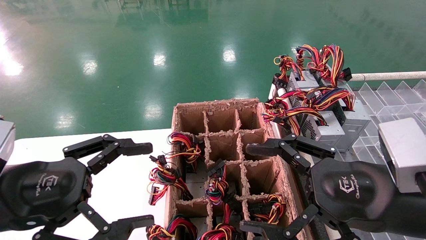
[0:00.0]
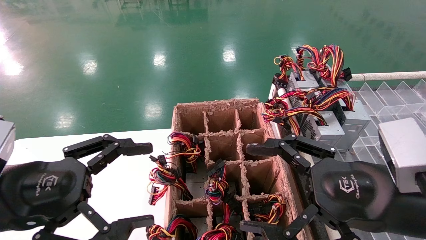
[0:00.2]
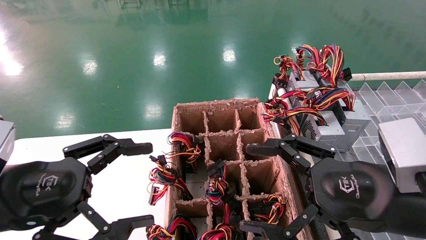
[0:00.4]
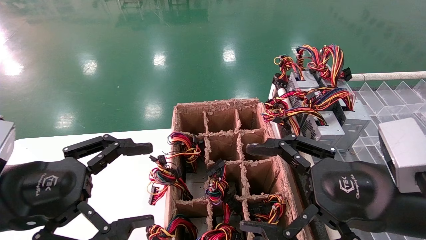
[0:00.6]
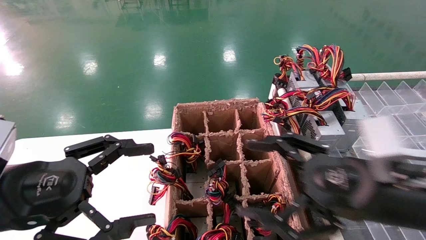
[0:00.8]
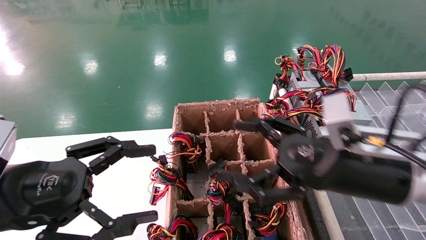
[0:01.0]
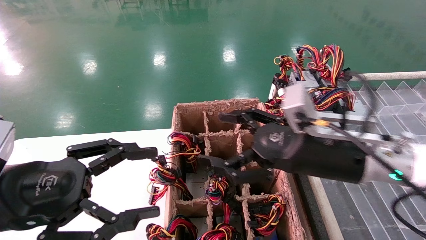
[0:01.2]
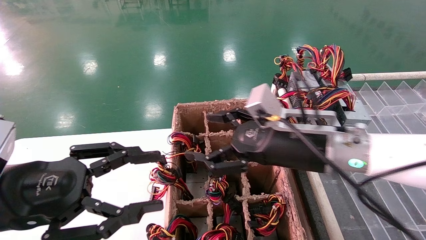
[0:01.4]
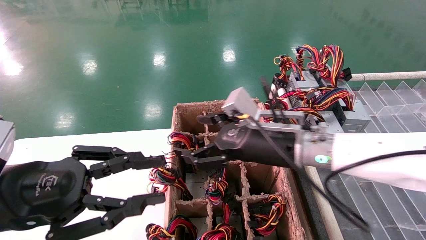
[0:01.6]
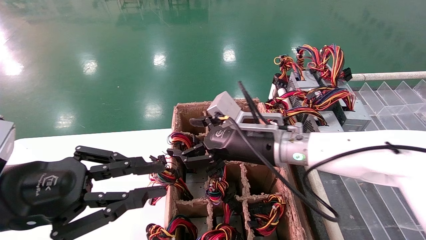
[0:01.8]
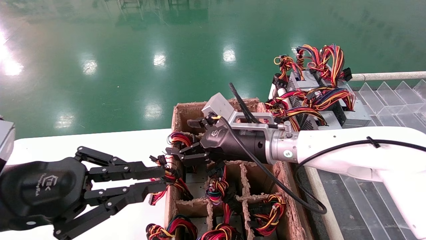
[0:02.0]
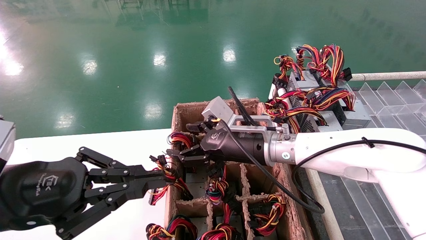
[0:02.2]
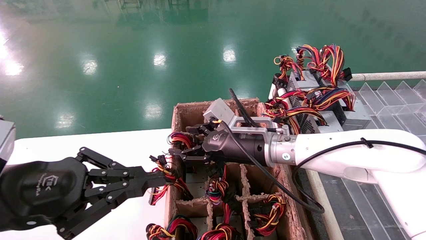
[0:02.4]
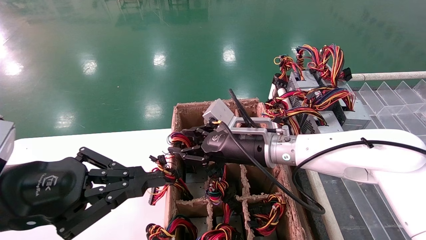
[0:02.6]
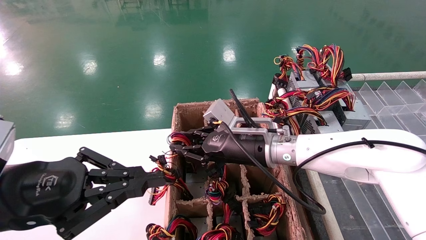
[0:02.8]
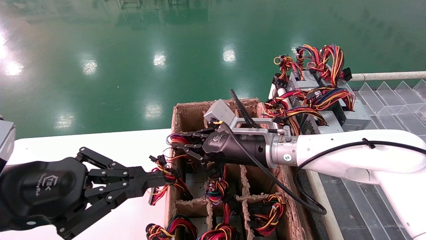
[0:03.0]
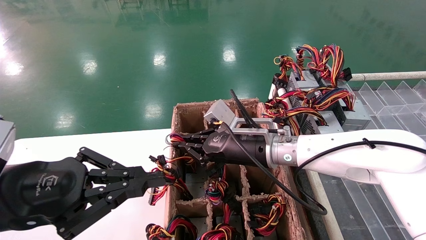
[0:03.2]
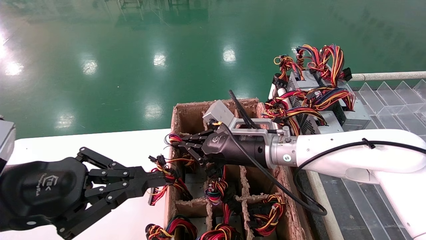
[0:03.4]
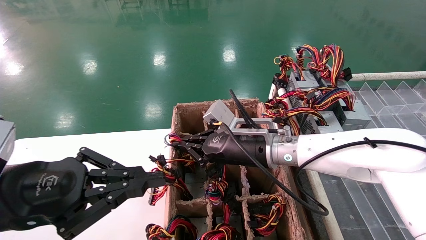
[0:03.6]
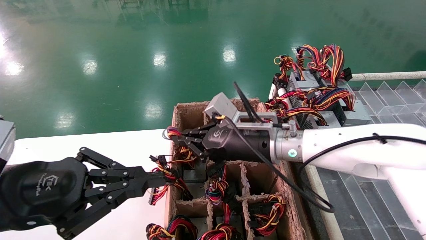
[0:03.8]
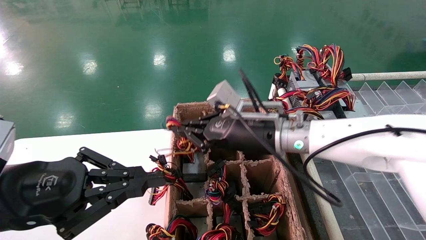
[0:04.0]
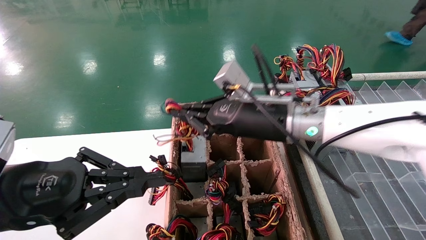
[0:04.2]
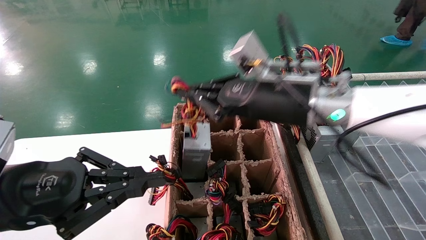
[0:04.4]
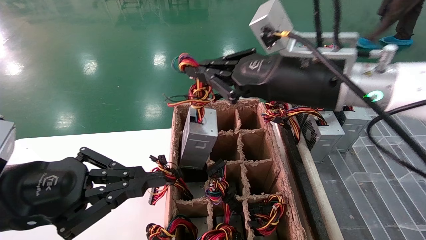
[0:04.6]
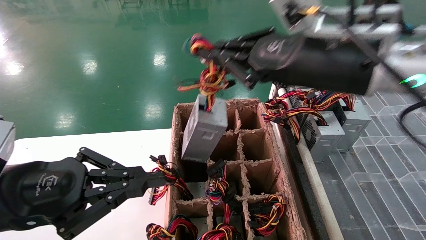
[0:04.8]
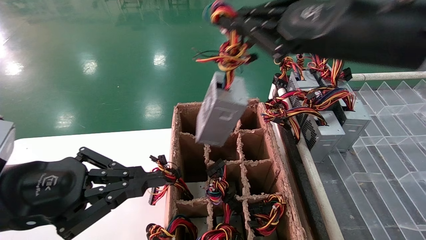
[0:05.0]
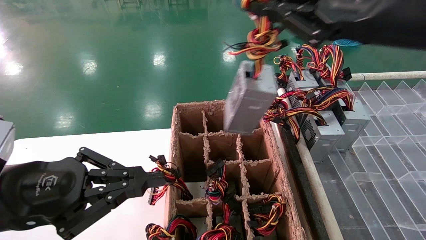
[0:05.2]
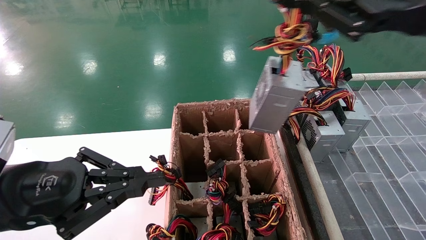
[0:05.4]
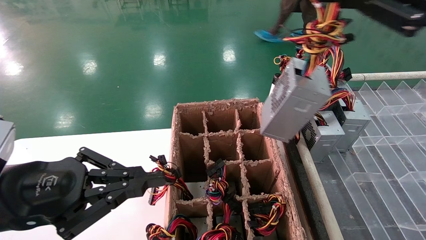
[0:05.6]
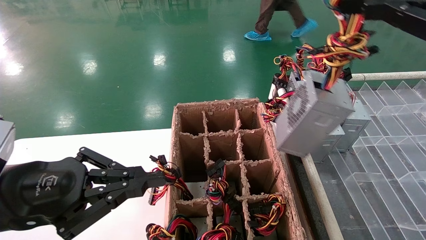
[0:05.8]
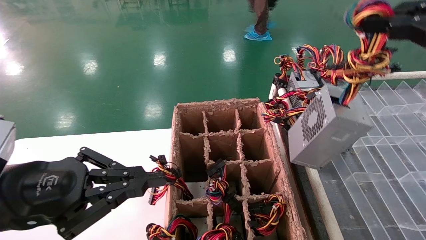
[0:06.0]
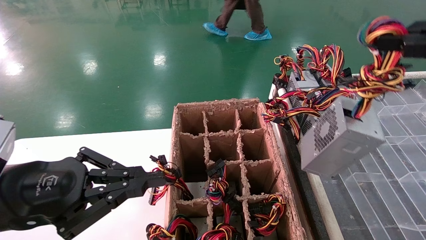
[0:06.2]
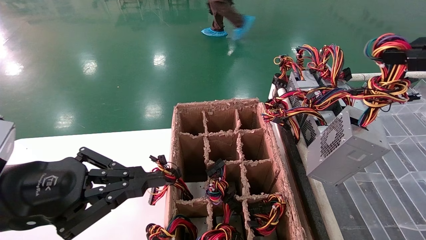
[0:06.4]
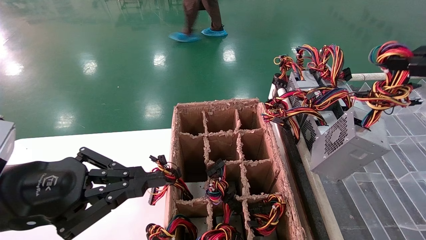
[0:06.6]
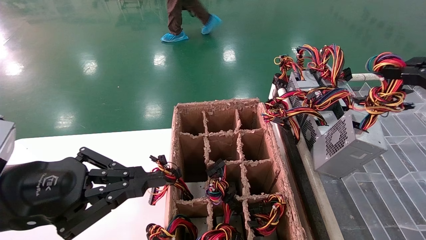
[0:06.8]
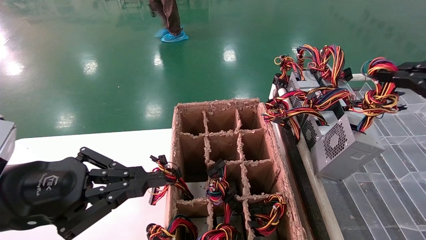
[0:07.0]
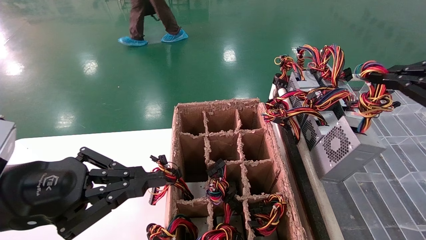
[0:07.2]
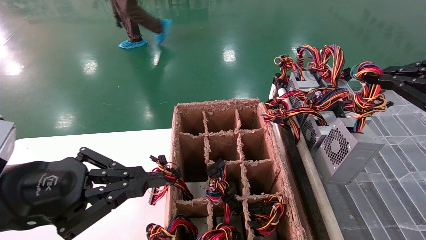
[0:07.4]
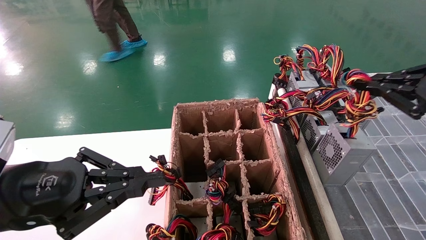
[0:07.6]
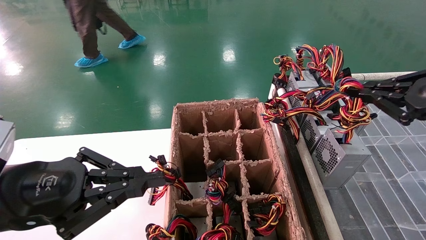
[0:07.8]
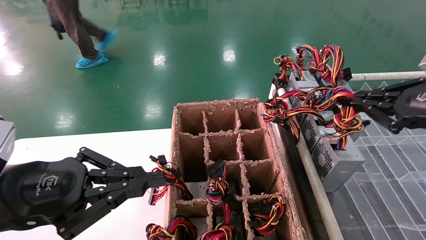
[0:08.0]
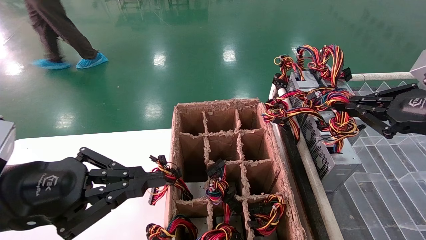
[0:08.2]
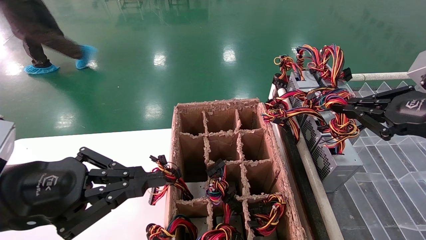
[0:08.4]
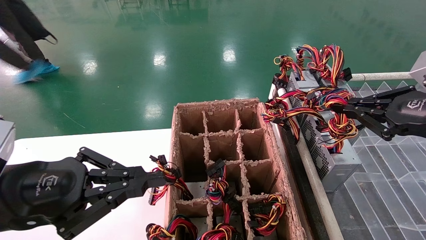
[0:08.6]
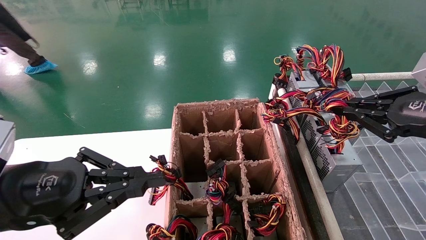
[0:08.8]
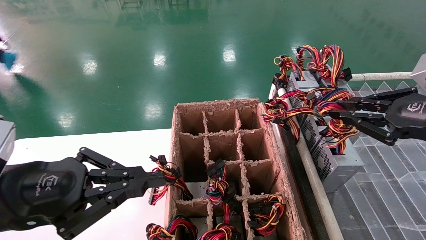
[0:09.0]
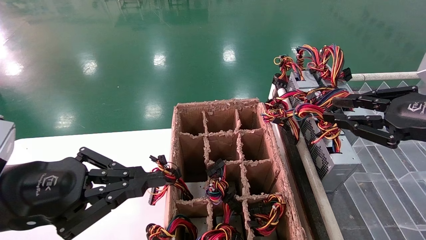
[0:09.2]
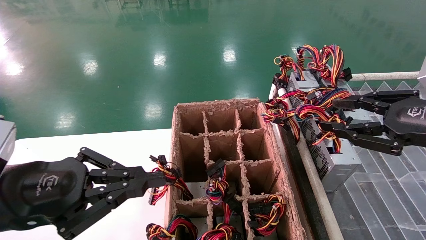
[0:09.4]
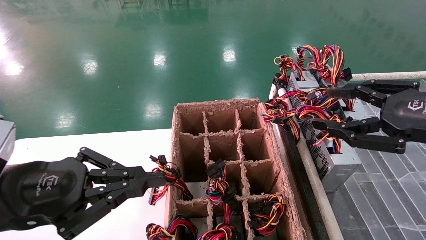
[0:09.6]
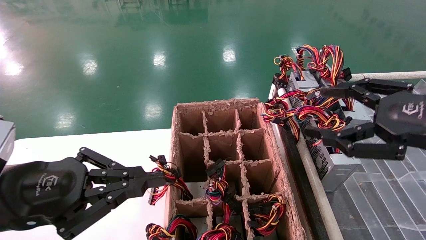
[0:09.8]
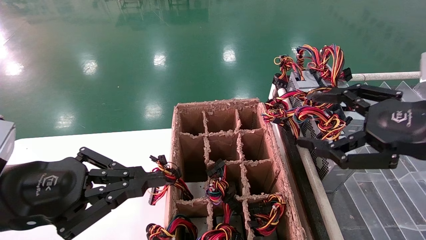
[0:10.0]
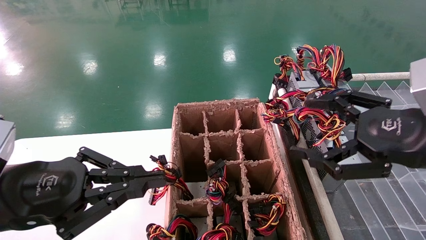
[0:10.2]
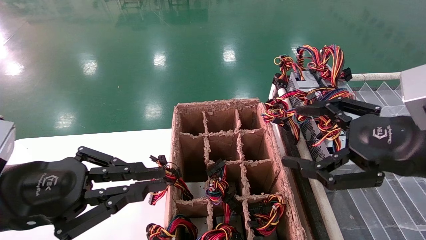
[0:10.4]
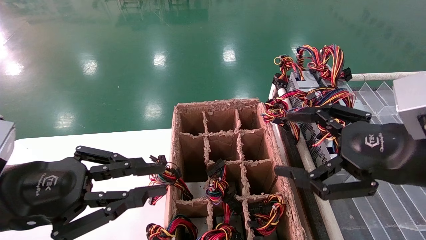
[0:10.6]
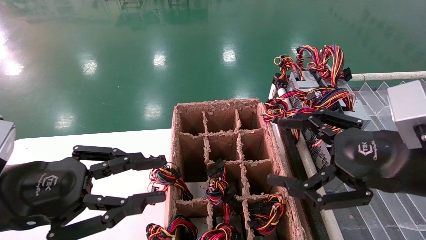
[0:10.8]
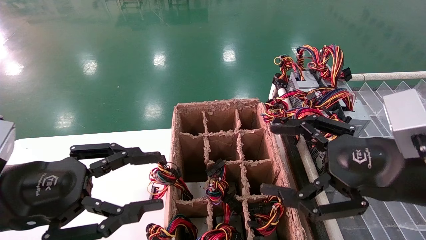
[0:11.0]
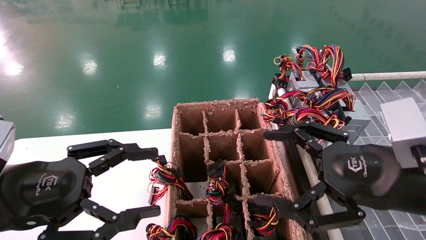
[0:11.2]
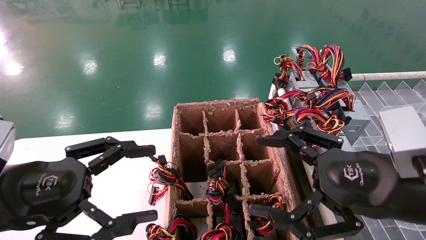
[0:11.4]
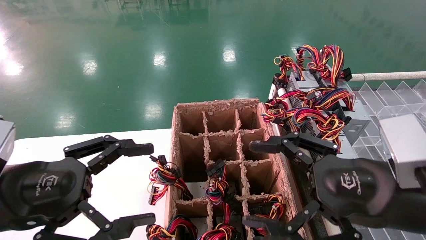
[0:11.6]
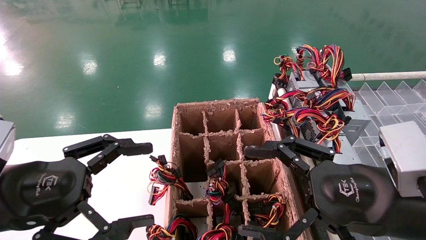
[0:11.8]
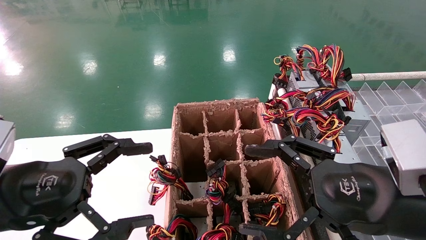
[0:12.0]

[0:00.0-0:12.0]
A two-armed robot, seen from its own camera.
Step, 0:01.2 to 0:03.6: Grab the main unit power supply from the containment box.
0:00.0 to 0:01.6: The right gripper heads forward and to the left, covering some 20 cm, while the left gripper closes up.
0:01.6 to 0:03.0: The left gripper closes its fingers, while the right gripper shifts by some 5 cm, and closes.
0:03.0 to 0:04.4: The right gripper shifts roughly 15 cm upward and backward.
0:04.4 to 0:06.0: The right gripper is displaced to the right, backward and upward by approximately 30 cm.
0:06.0 to 0:07.6: The right gripper travels forward and downward by some 10 cm.
0:07.6 to 0:09.0: The grippers move only a little.
0:09.0 to 0:10.4: The right gripper moves to the left, approximately 5 cm, and opens up.
0:10.4 to 0:12.0: The right gripper heads downward and to the left, covering roughly 10 cm, while the left gripper opens its fingers.

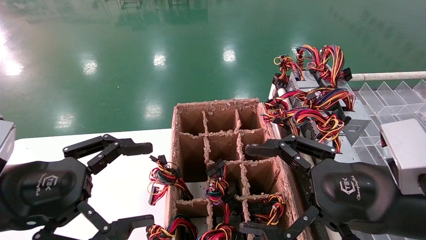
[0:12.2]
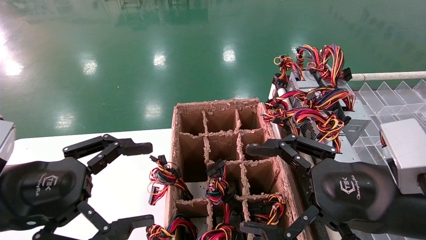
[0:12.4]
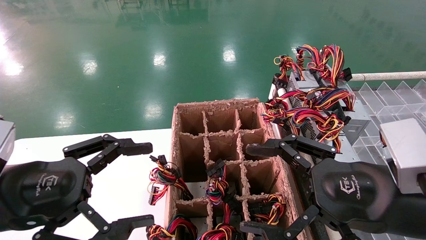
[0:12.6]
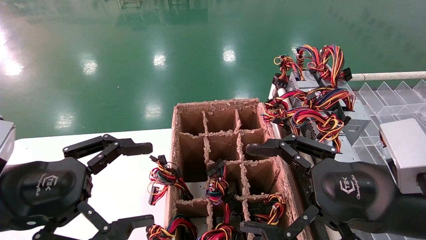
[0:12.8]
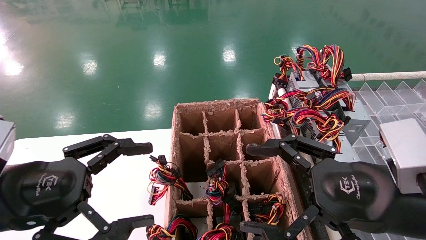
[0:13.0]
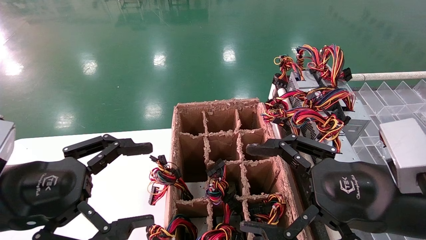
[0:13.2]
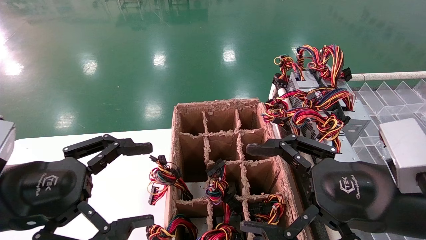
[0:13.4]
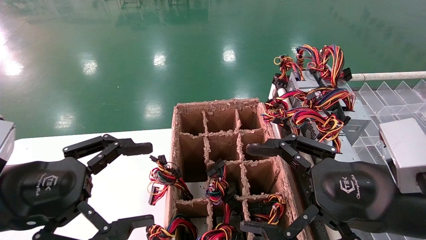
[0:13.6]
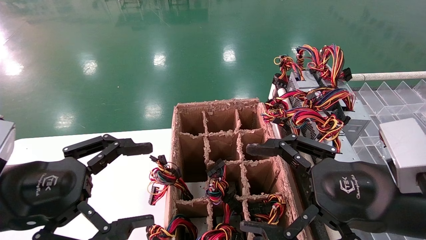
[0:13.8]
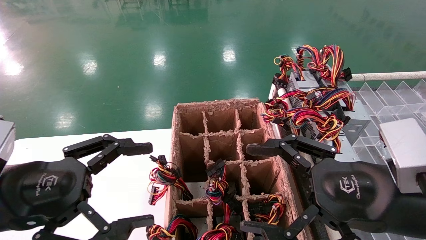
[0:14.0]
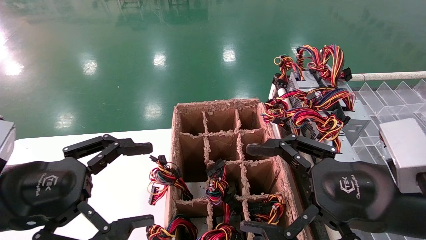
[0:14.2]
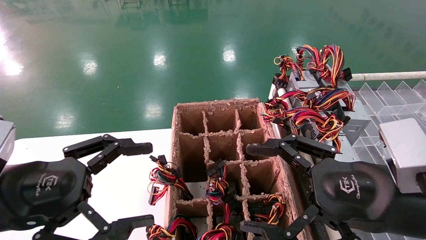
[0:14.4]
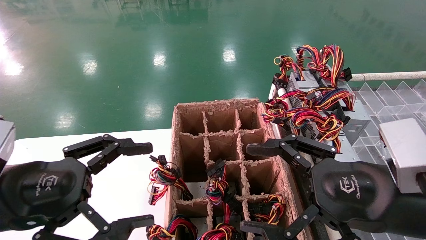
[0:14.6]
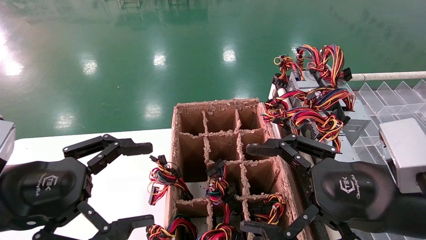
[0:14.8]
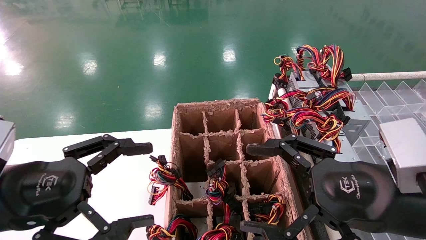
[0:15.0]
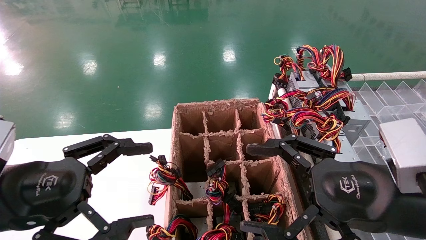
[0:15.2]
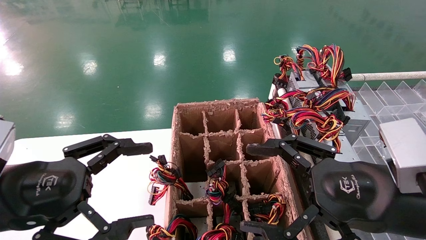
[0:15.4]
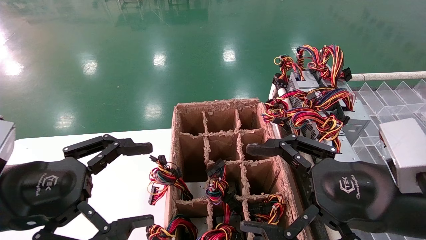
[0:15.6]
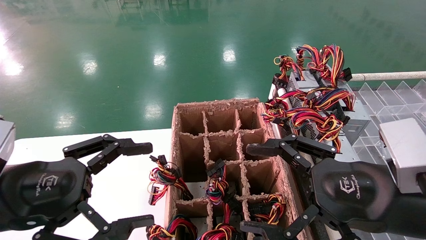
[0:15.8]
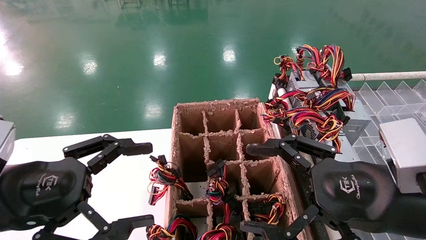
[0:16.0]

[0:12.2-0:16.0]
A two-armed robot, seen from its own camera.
0:12.2 to 0:16.0: Neither gripper changes place.
